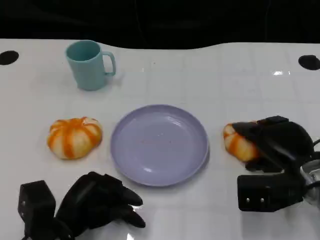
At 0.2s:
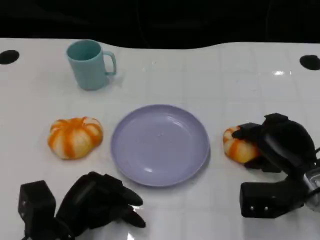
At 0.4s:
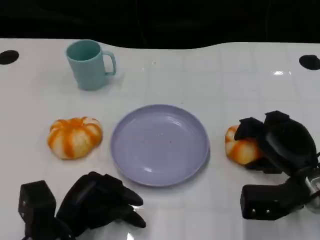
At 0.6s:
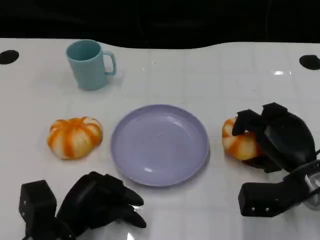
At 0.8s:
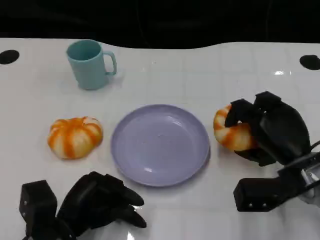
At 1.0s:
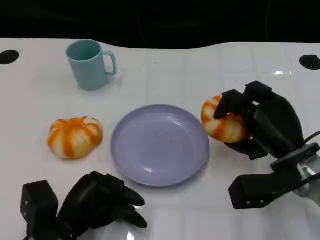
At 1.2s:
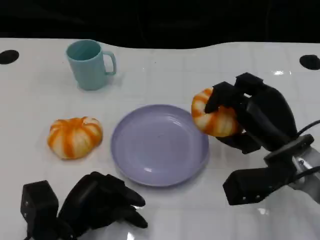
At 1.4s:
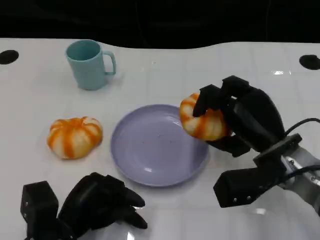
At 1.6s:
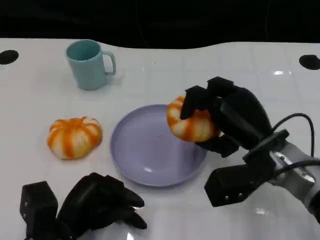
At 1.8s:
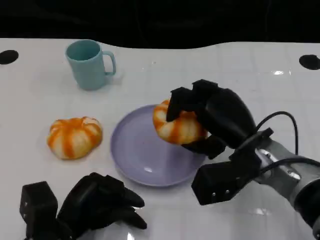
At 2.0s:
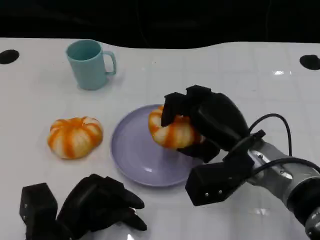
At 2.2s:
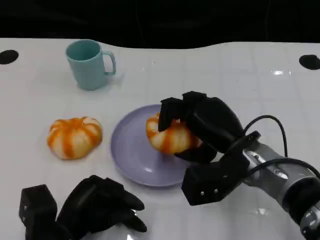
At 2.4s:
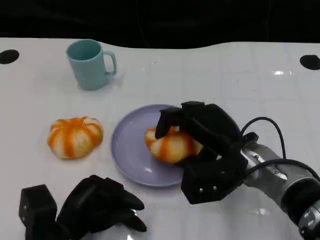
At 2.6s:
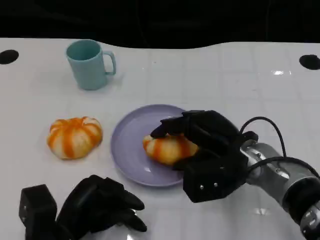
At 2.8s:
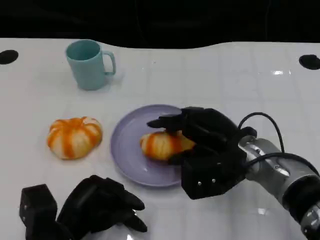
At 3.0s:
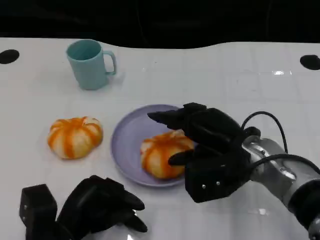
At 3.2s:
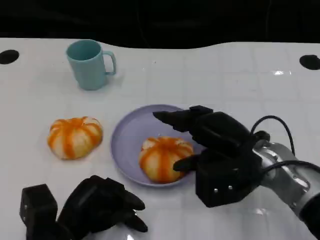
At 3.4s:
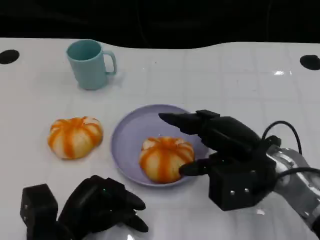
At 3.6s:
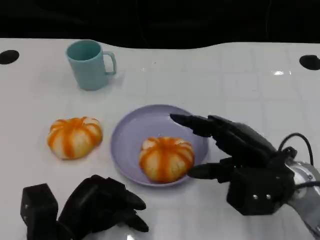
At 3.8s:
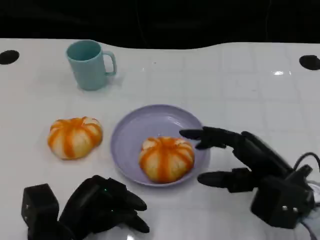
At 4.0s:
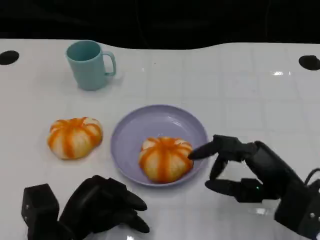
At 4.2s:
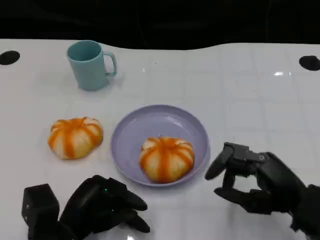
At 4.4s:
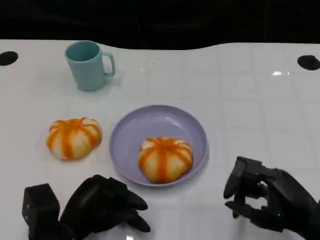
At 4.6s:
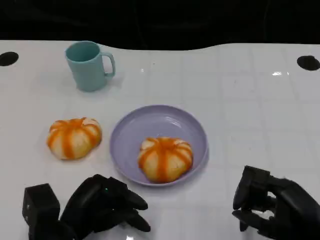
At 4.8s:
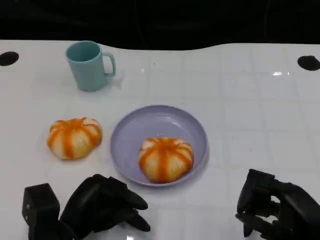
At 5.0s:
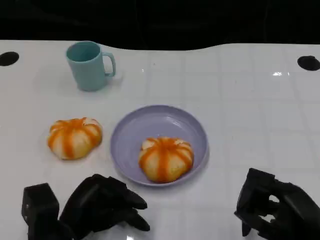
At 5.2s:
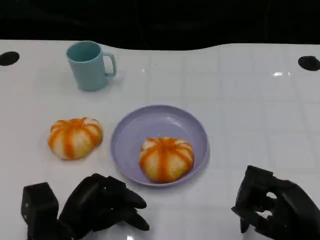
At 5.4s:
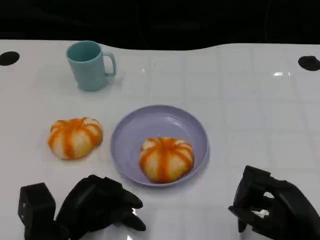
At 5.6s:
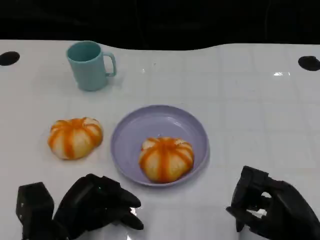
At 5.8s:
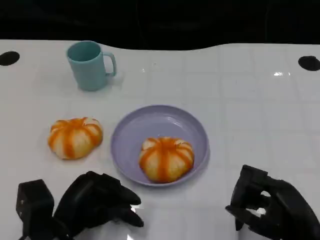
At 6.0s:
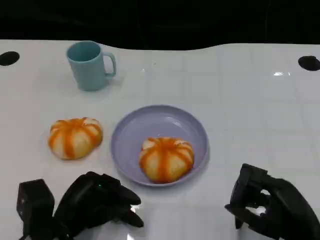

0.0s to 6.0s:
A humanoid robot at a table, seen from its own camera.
Task of the whole recording: Grasp the bread from the table and place it into the plate.
0.0s to 1.6s: The right hand is displaced to the left by about 5 cm.
3.0s to 4.4s: The right hand moves backward and to the right, approximately 15 cm.
4.4s to 6.0s: The hands move only a little.

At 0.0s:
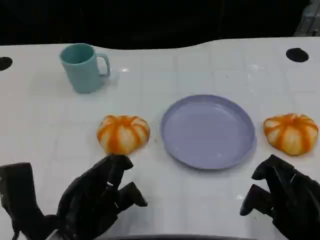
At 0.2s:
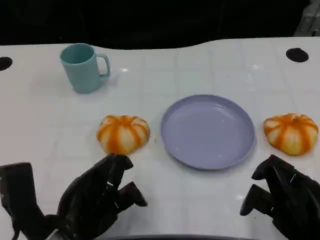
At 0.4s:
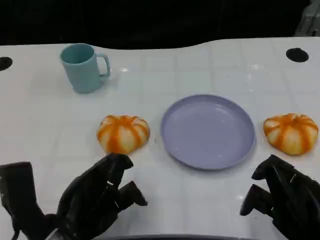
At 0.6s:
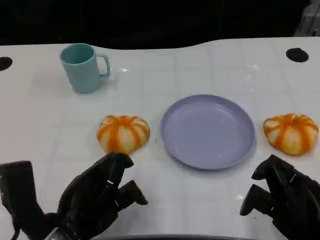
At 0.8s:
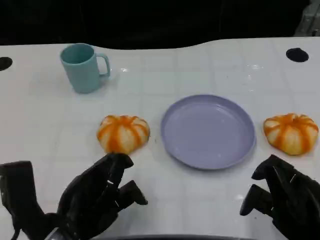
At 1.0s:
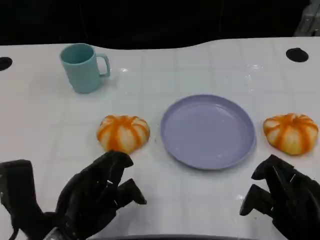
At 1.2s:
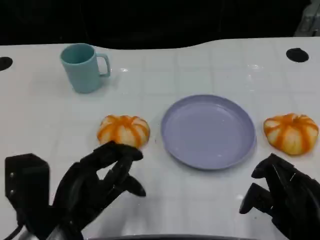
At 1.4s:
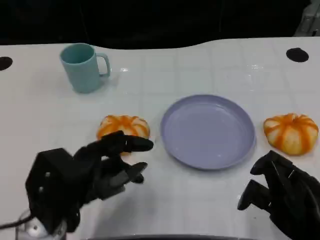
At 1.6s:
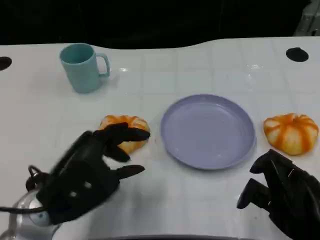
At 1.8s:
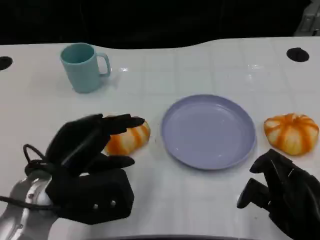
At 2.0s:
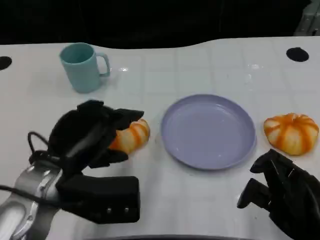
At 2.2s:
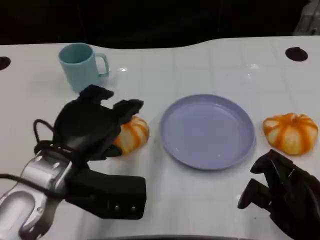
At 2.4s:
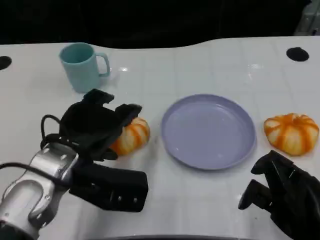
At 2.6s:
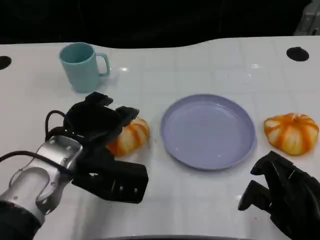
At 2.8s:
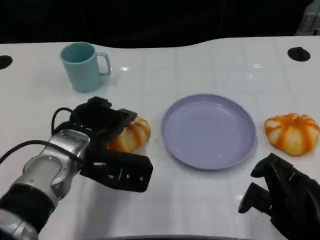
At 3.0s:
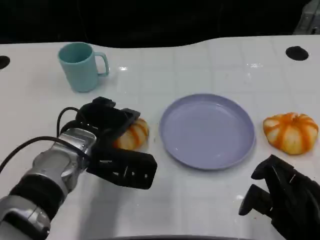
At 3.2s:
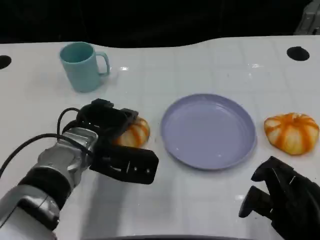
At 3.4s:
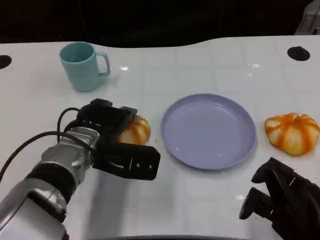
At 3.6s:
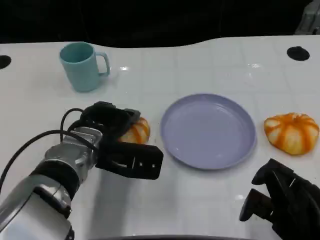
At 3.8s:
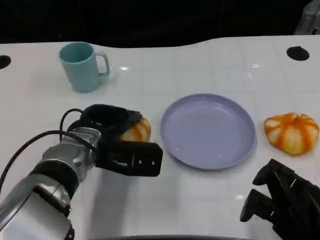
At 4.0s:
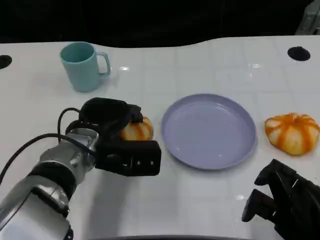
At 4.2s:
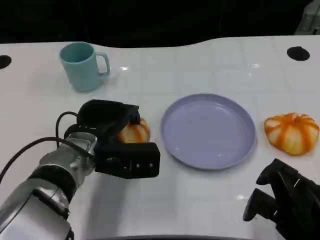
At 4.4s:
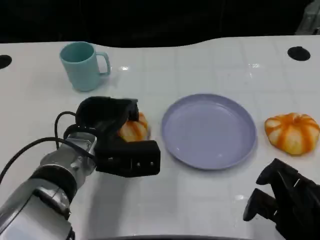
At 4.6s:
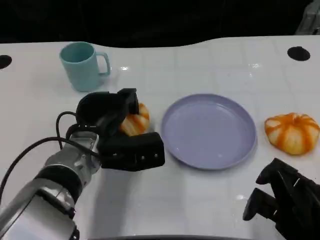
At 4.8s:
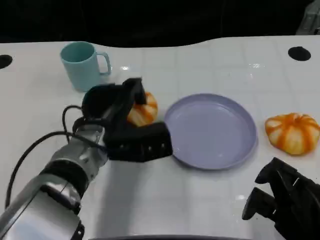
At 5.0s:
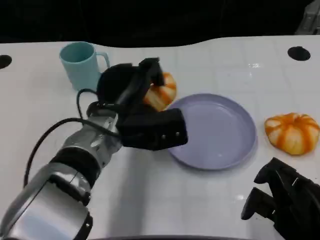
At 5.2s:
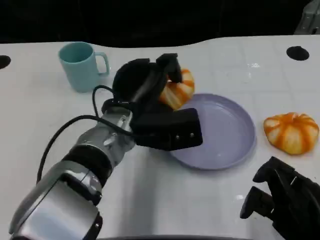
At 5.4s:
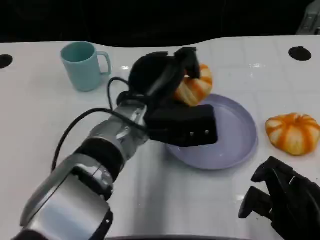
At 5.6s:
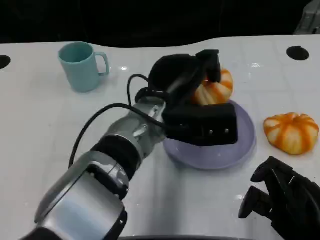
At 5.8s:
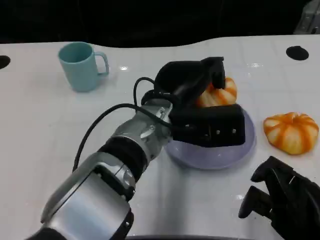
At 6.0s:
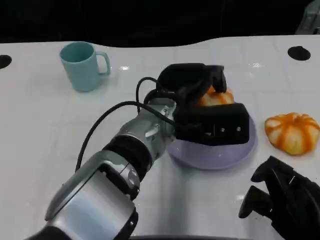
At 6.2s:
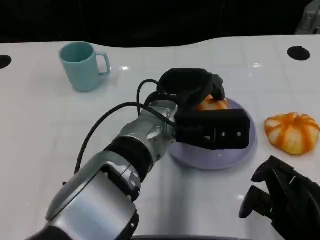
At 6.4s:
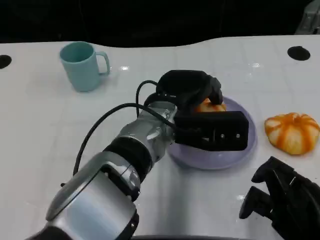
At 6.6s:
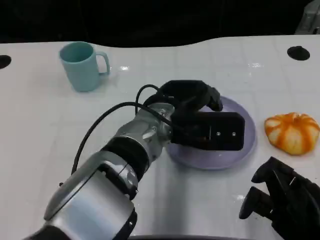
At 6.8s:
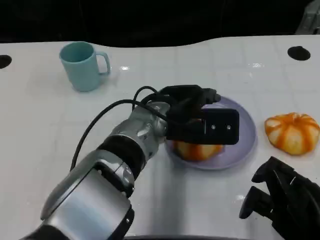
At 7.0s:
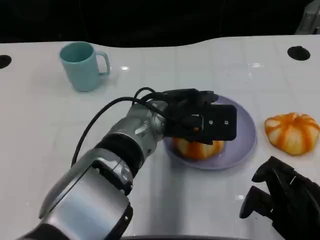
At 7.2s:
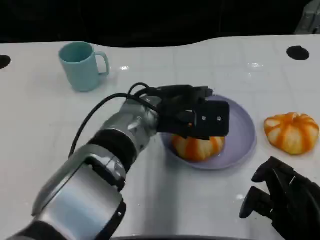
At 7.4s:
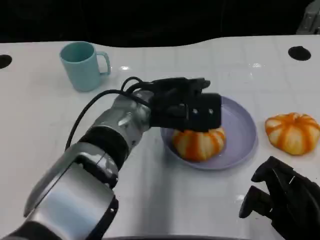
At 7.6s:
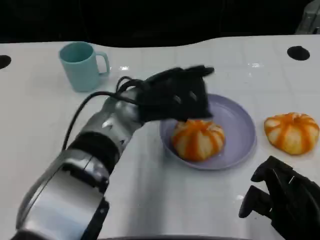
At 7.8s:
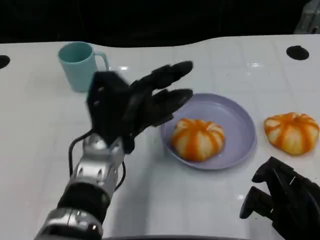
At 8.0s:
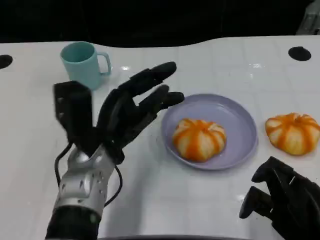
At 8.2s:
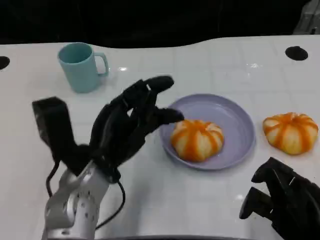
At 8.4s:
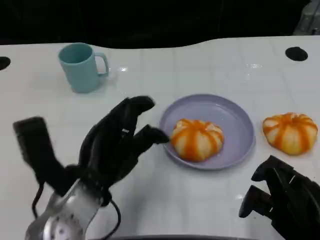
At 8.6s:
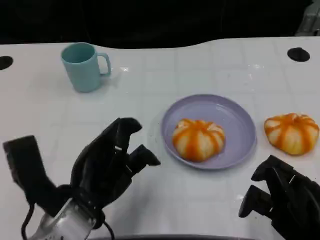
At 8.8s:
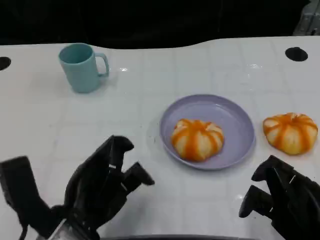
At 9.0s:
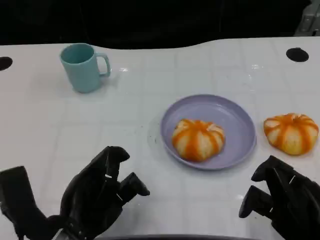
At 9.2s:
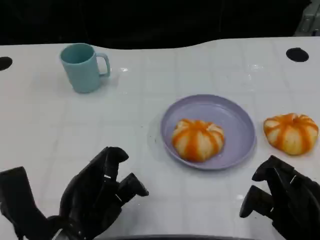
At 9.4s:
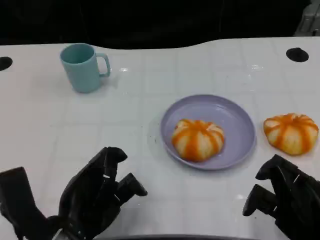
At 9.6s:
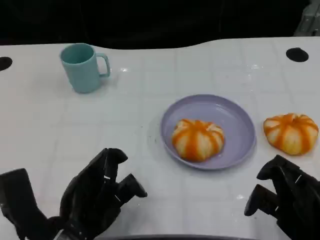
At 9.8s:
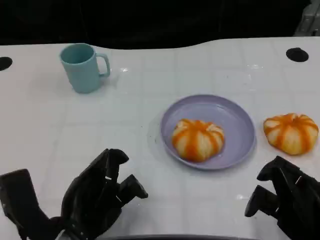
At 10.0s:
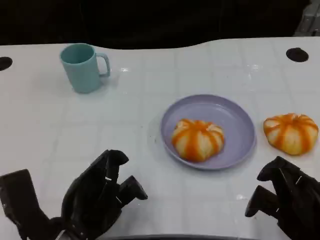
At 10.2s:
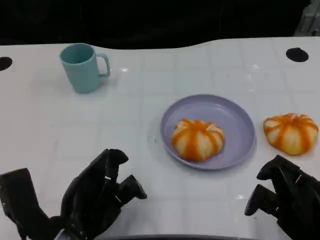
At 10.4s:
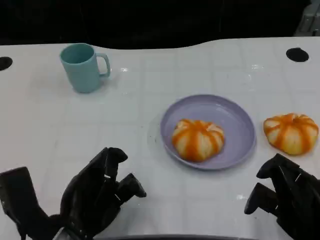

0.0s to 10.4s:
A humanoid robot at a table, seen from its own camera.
Task of the whole recording: Grasp the bread from the table and place it into the plate.
1.4s to 3.0s: The left hand moves forward, some 10 cm.
3.0s to 4.4s: There are only small adjustments of the hands.
4.4s to 6.0s: The left hand goes approximately 15 cm to the right and upward.
7.4s to 9.0s: The left hand heads backward and to the left, covering approximately 20 cm.
9.0s to 10.4s: Both hands stay put.

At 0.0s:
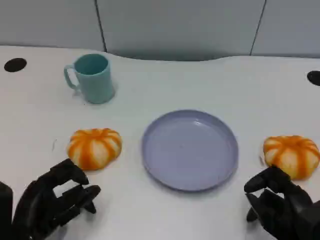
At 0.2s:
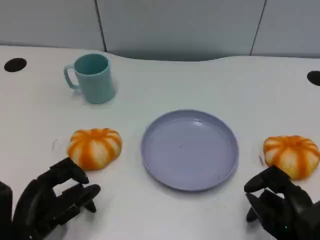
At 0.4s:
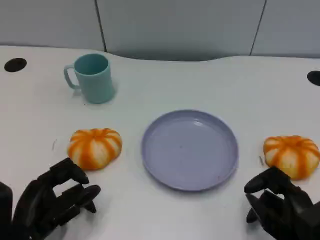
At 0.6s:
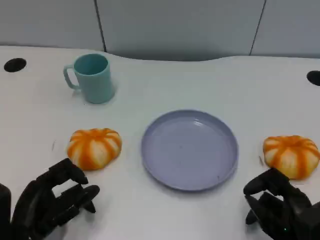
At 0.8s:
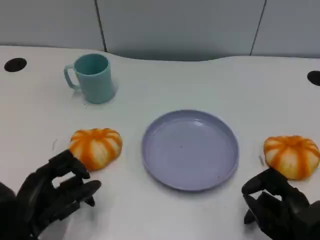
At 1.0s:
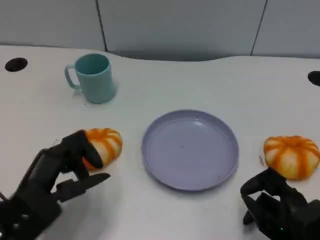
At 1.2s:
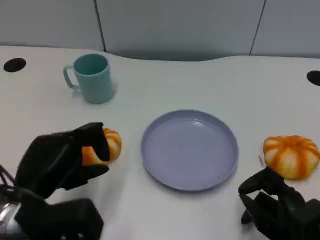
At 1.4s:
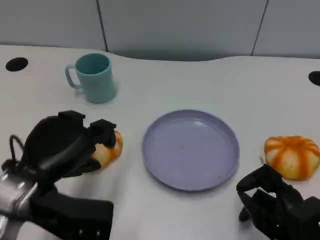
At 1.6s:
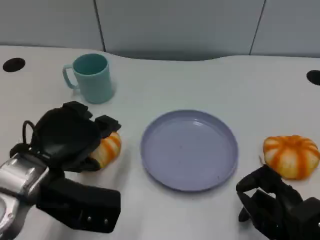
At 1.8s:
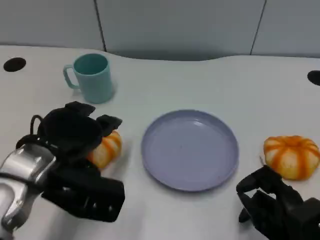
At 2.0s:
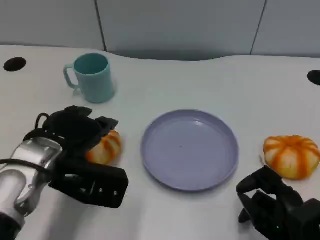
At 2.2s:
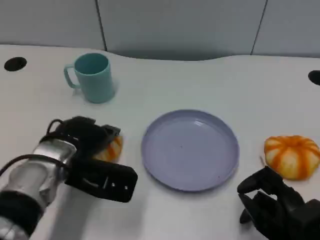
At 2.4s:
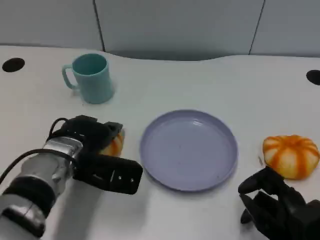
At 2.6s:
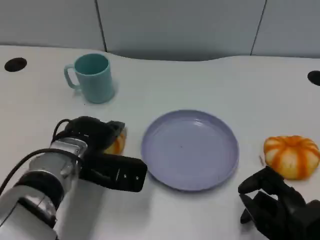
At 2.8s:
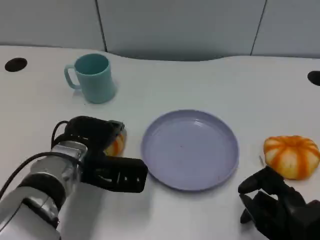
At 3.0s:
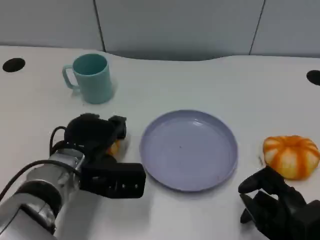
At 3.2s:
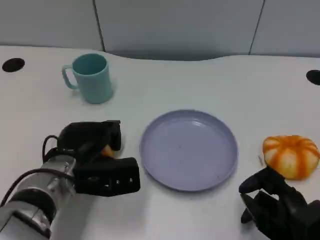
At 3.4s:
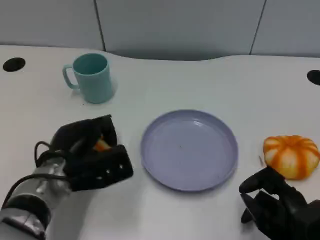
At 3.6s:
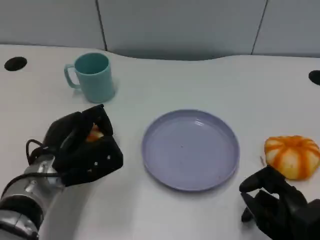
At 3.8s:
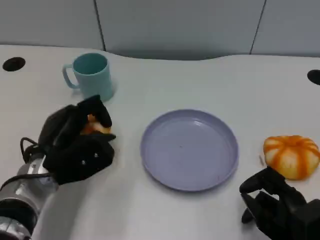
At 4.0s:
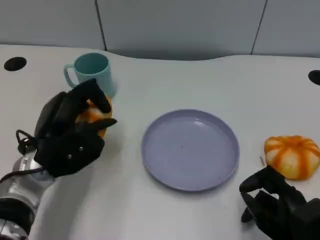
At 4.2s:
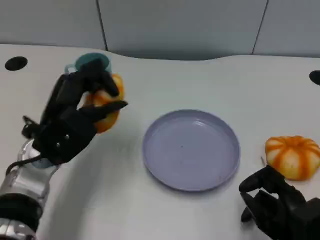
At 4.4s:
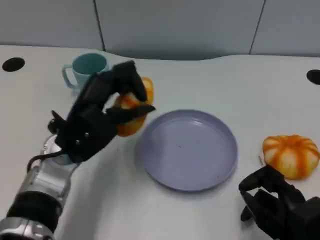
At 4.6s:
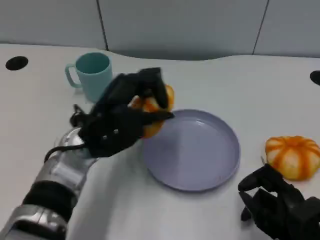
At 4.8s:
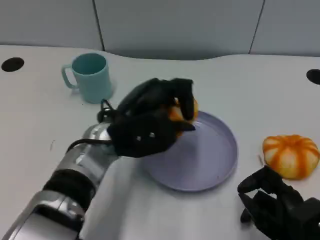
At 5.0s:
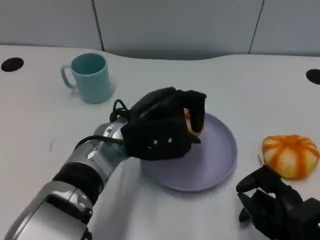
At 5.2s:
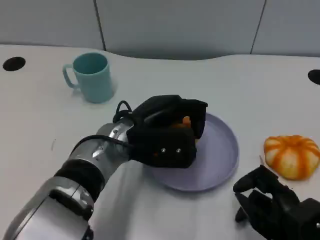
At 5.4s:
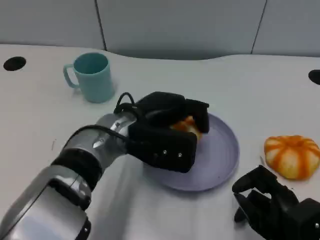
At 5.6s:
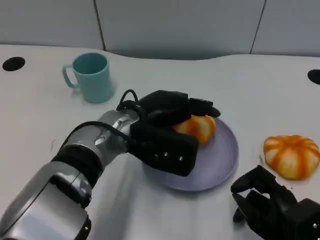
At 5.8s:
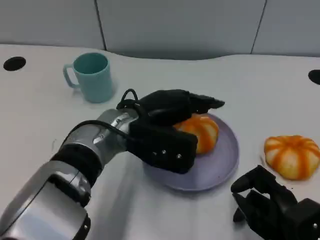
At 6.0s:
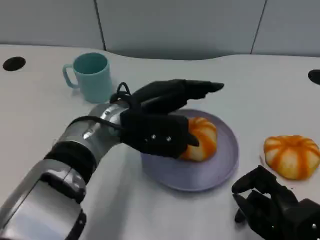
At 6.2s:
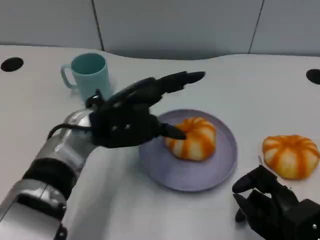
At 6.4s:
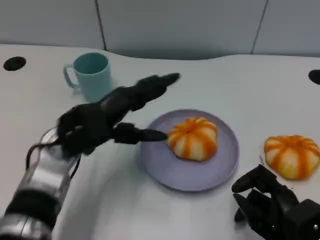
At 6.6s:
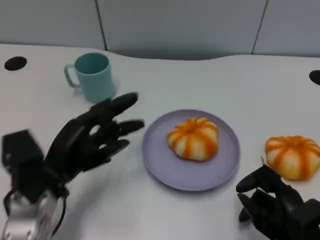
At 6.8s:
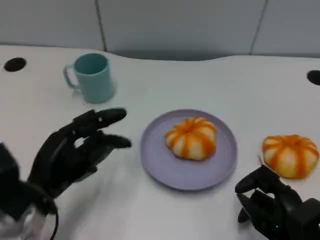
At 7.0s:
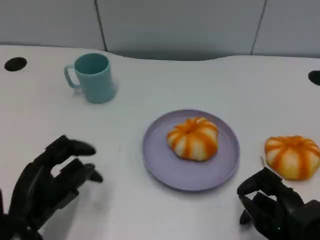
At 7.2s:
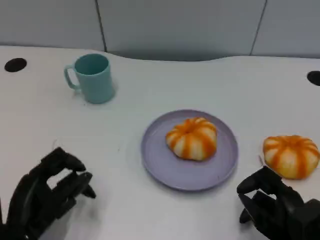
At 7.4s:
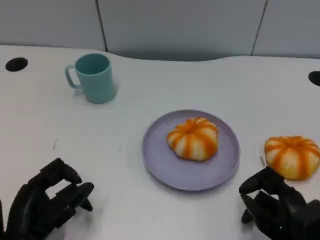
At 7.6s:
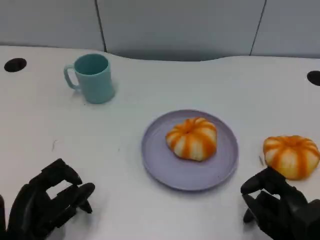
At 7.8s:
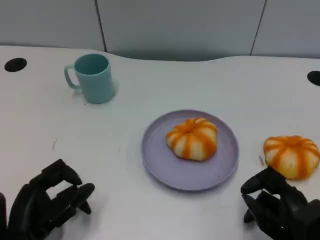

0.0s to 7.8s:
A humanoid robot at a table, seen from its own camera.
Task of the whole recording: Grasp the bread from the table and place it into the plate.
0.0s to 1.6s: The left hand travels upward and forward by roughly 10 cm.
1.6s to 3.2s: The left hand goes roughly 10 cm downward.
3.2s to 4.6s: The left hand is displaced upward and to the right by some 10 cm.
6.2s to 7.8s: The left hand is displaced backward, to the left and downward by about 20 cm.
